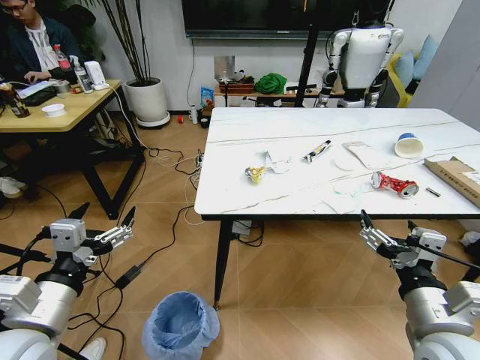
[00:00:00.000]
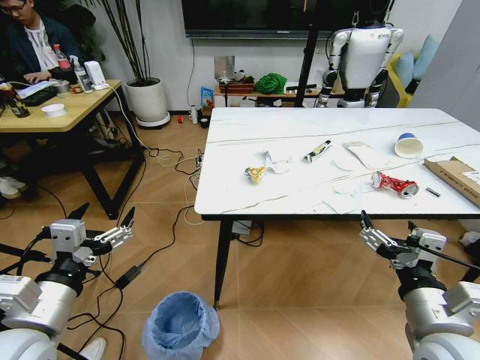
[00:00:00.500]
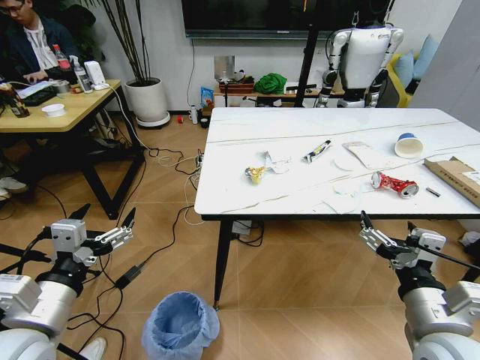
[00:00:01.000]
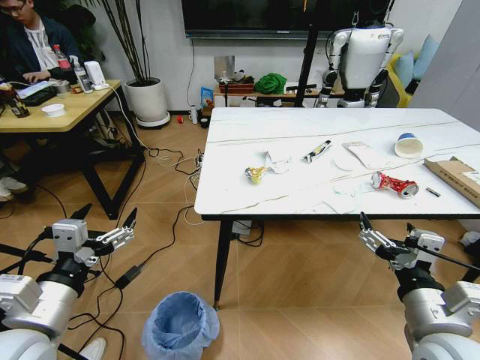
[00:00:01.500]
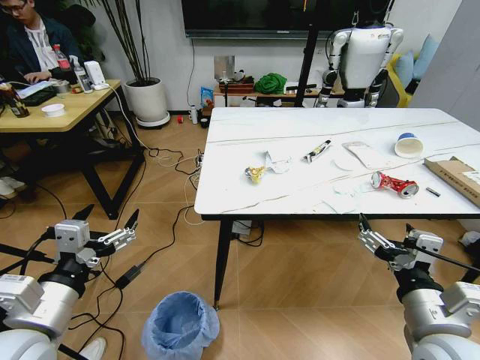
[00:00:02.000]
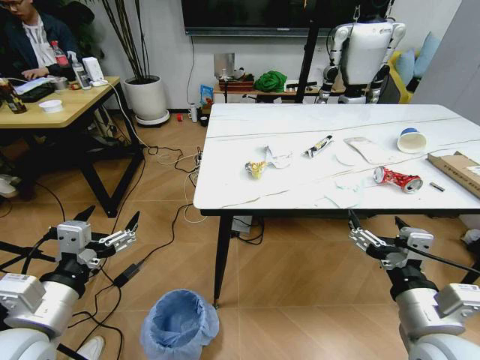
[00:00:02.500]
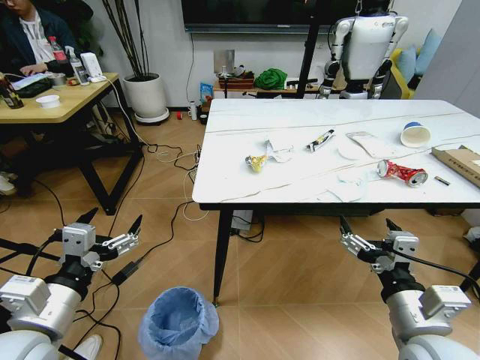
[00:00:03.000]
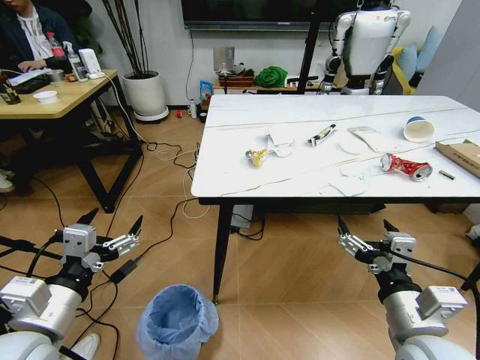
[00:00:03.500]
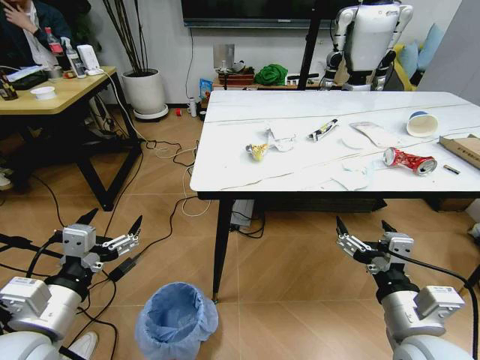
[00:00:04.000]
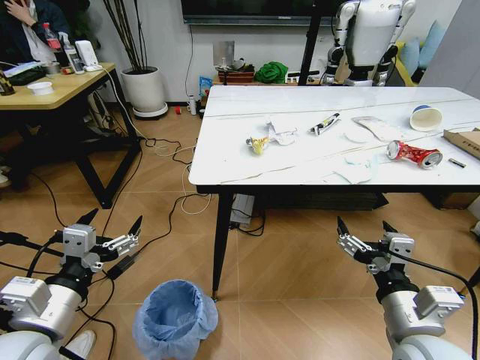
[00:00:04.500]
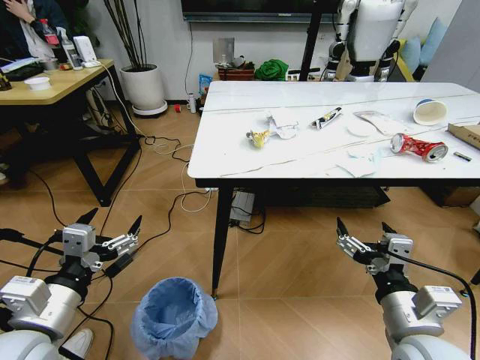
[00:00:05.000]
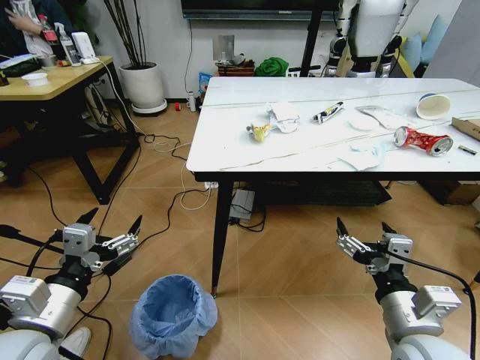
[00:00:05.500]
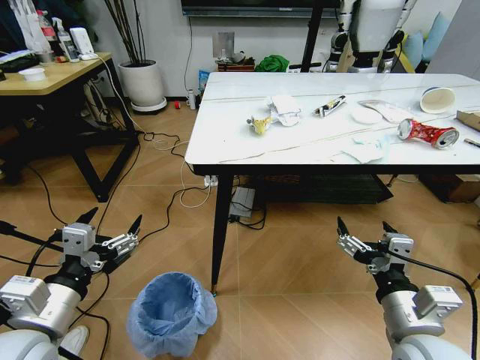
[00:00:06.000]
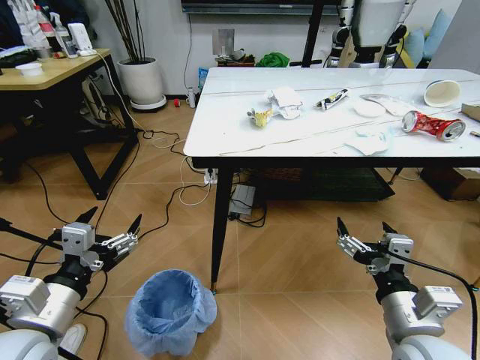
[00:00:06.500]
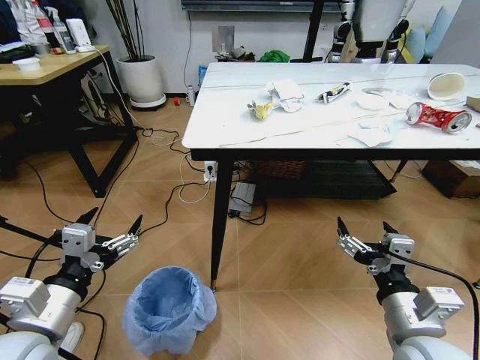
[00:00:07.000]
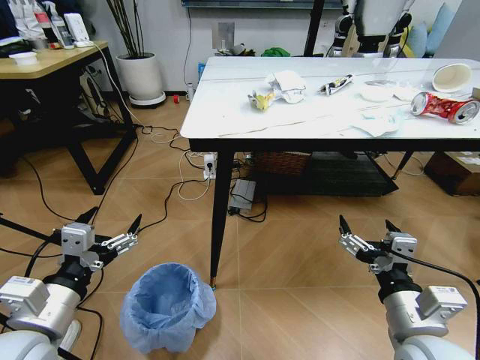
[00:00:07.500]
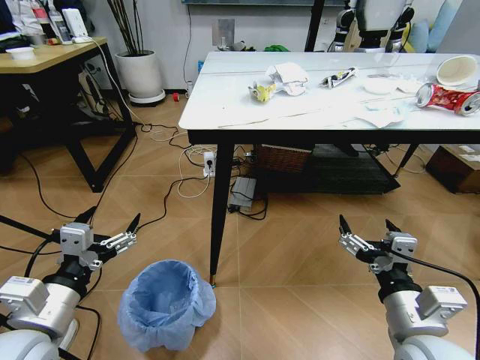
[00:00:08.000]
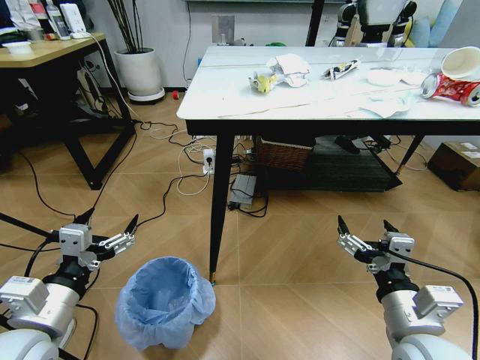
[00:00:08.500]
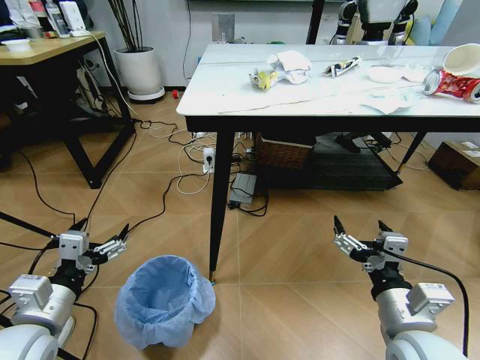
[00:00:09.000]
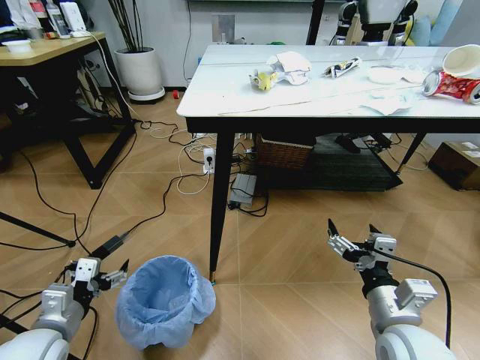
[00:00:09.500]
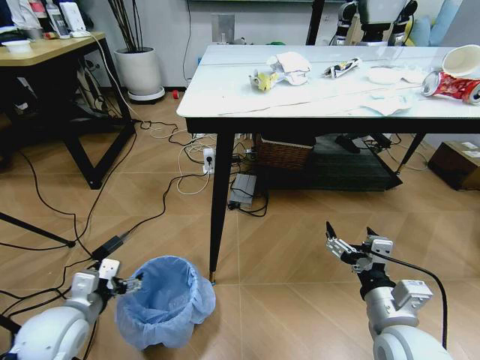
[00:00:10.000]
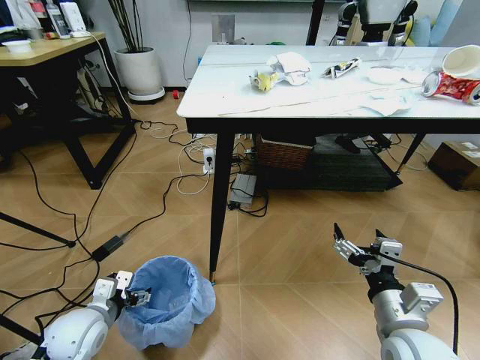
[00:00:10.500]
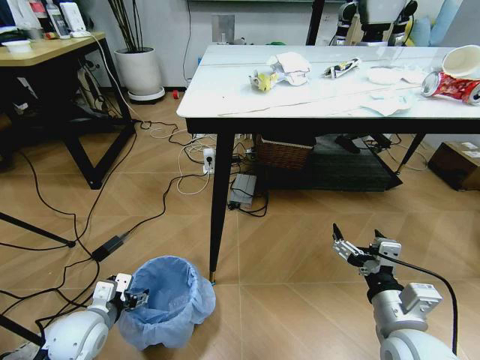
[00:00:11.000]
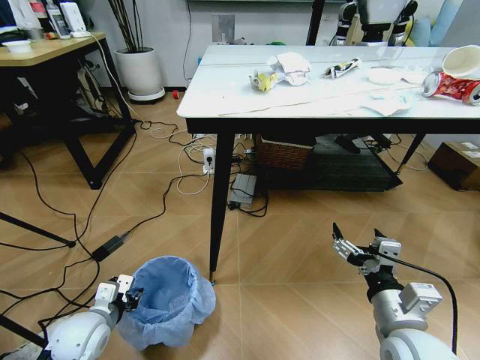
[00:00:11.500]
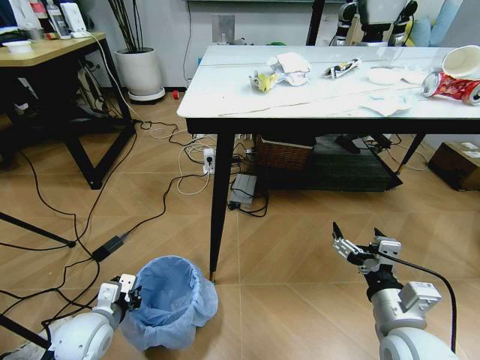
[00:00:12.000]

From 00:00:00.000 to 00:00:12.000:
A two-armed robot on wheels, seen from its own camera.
Task of the whole recording: Pick up the trash bin and place the trash from the table into it.
From 00:00:08.000 to 00:00:10.000: The left gripper moves downward and forward, about 15 cm.
From 00:00:10.000 to 00:00:12.000: The left gripper shifts about 5 cm downward, and closes its fingers.

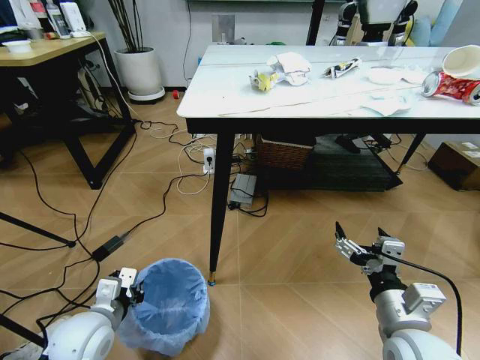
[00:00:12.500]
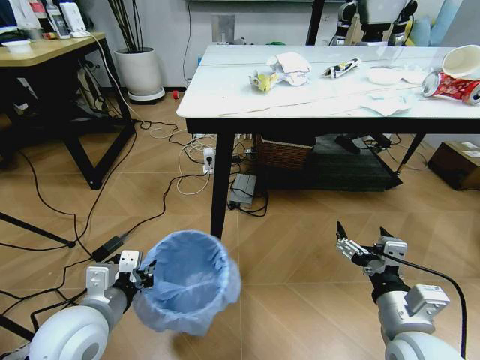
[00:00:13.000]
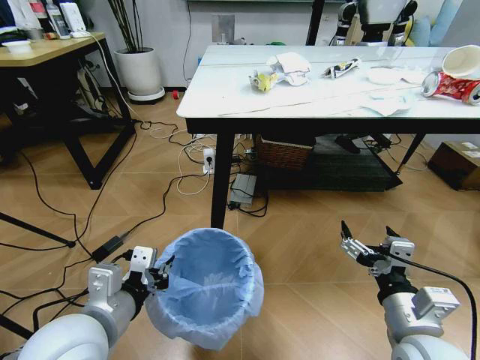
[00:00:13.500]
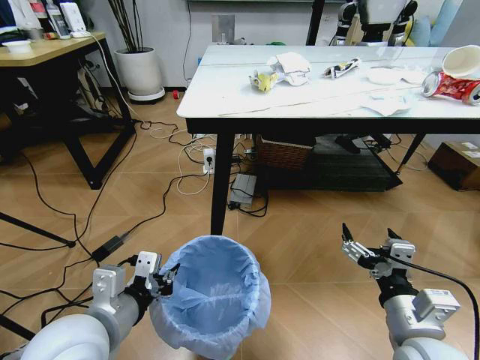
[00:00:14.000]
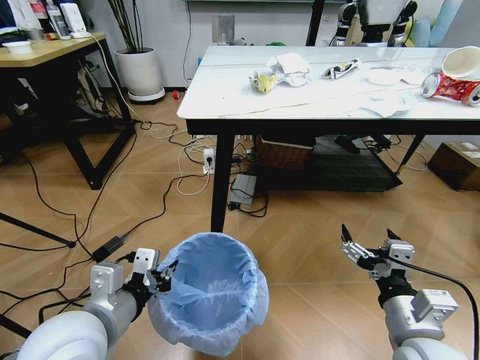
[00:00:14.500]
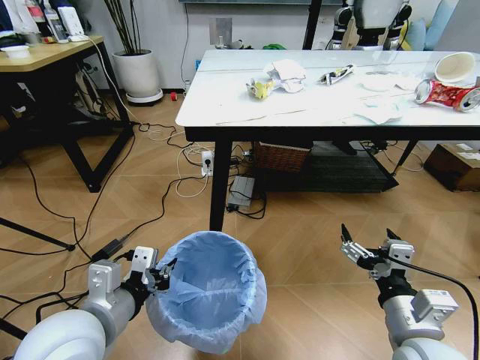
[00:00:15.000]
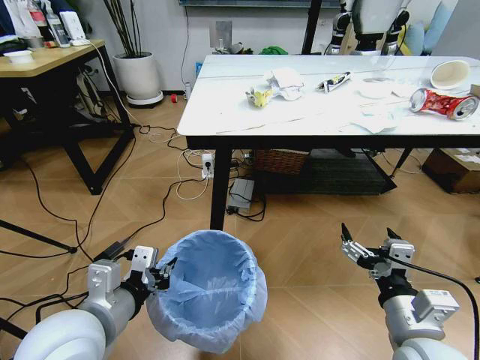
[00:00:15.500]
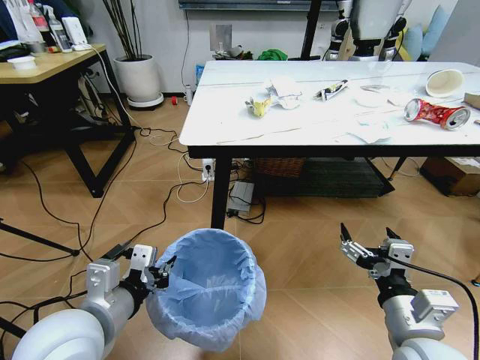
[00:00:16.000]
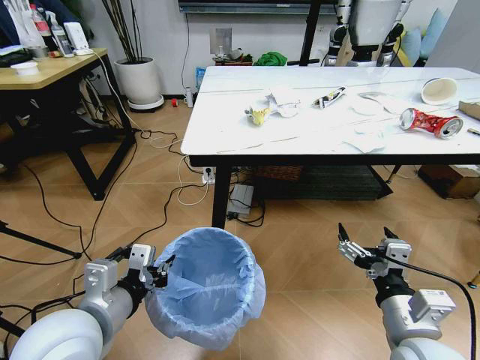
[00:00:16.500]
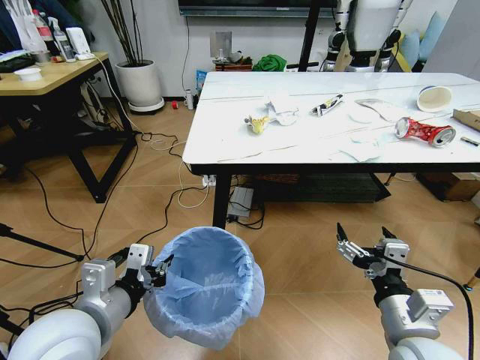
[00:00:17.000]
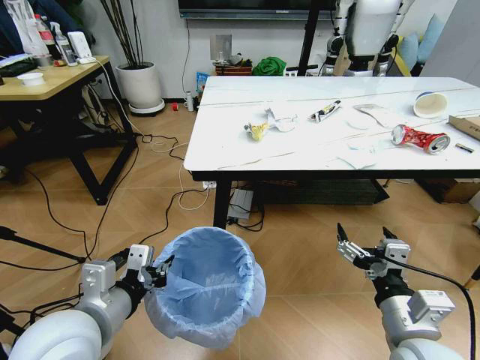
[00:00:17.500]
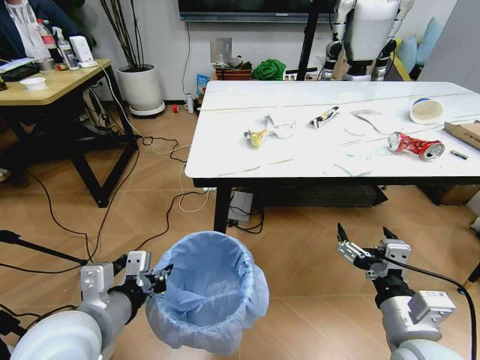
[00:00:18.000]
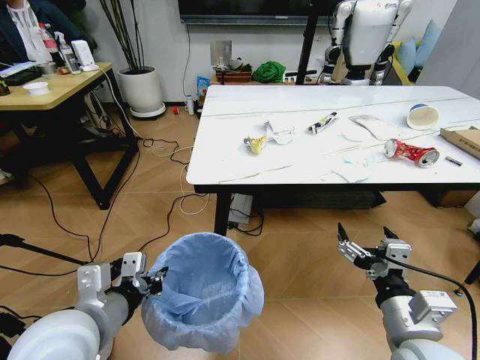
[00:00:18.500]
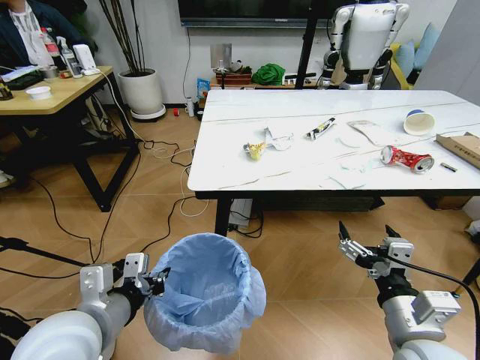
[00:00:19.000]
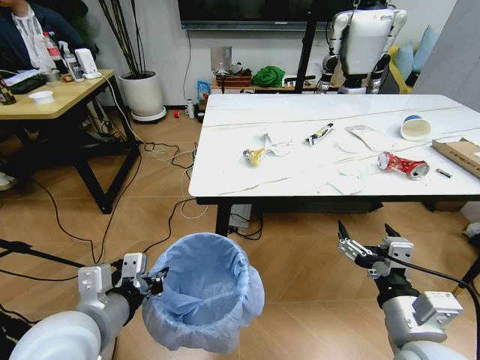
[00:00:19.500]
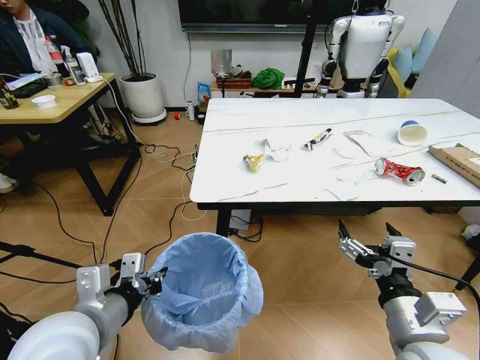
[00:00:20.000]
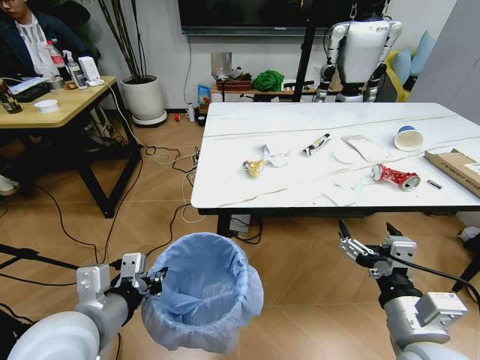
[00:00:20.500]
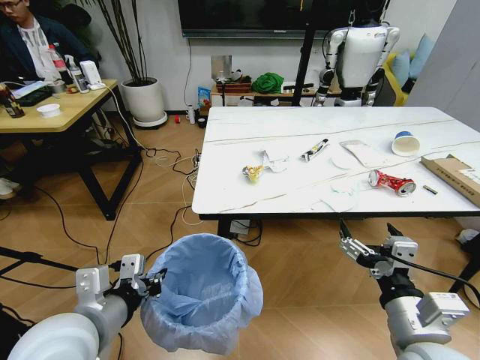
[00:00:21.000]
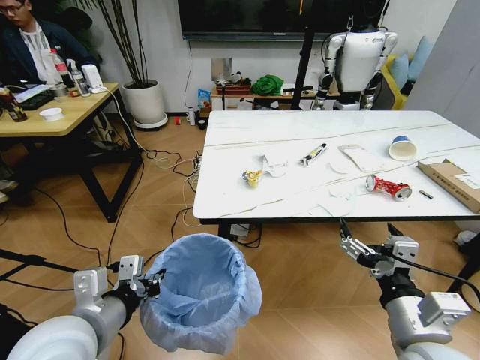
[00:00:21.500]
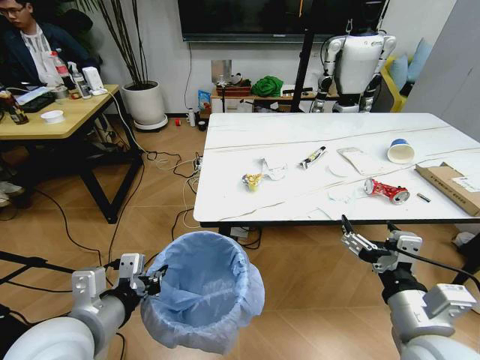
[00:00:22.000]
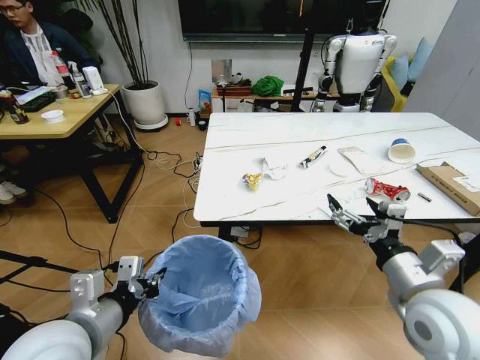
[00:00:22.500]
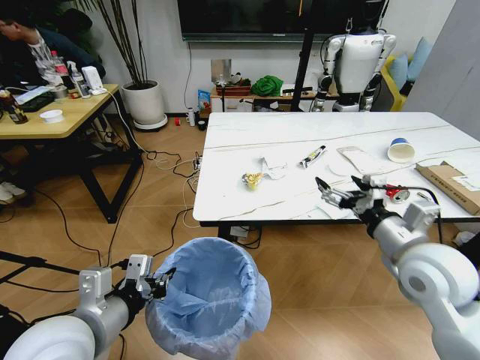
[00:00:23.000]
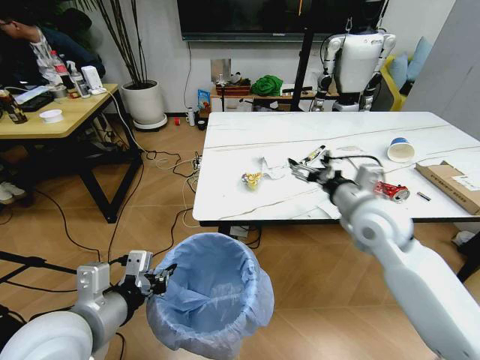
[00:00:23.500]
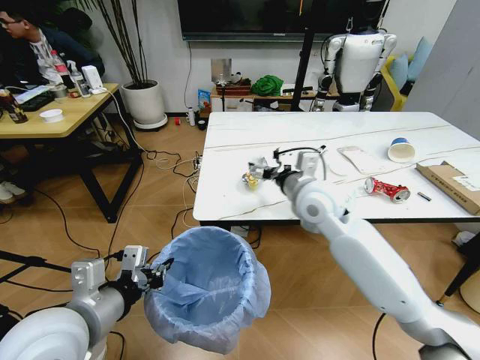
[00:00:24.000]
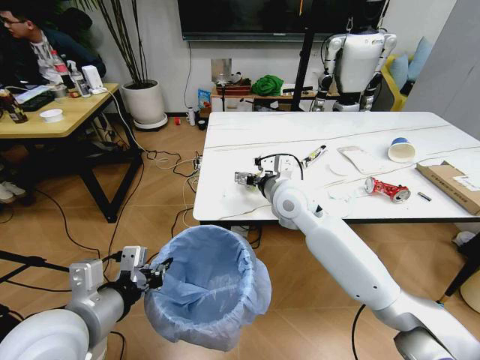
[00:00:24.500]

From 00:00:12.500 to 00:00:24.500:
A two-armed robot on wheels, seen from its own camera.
Task of the whole recording: Pick up the trash bin and place the trash from the table into it.
From 00:00:12.500 to 00:00:14.500: The left gripper moves upward and to the right, about 15 cm.
From 00:00:20.500 to 00:00:22.500: The right gripper shifts approximately 5 cm forward.
From 00:00:22.500 to 00:00:24.500: The right gripper travels forward and to the left by some 30 cm.

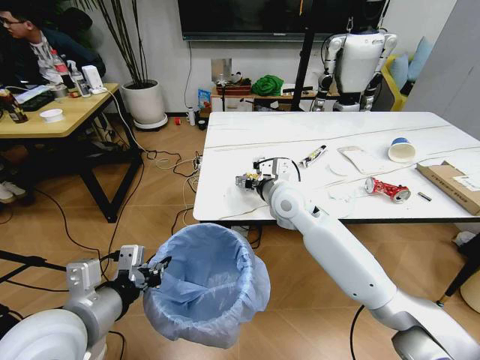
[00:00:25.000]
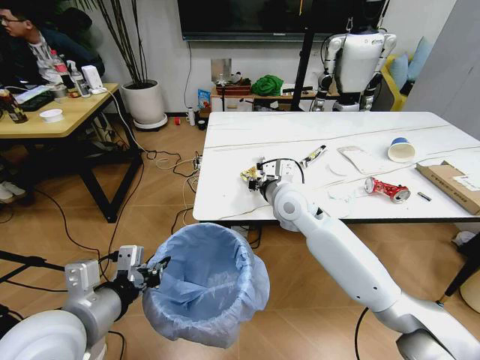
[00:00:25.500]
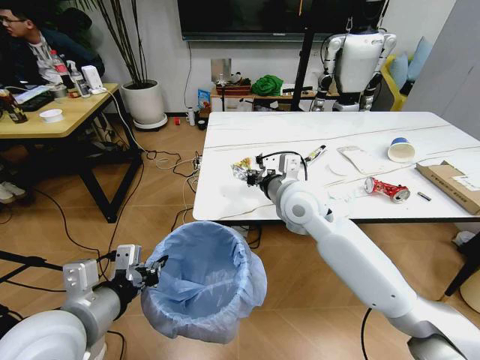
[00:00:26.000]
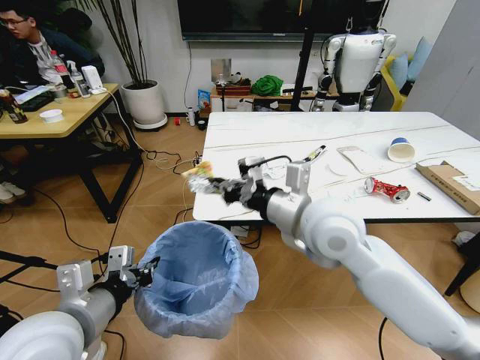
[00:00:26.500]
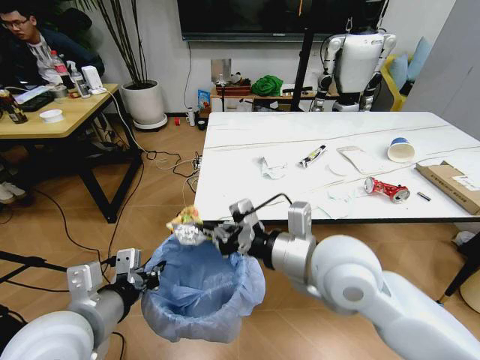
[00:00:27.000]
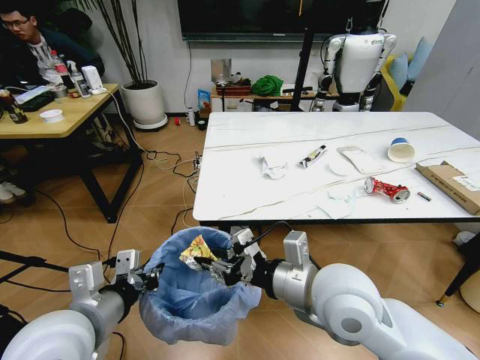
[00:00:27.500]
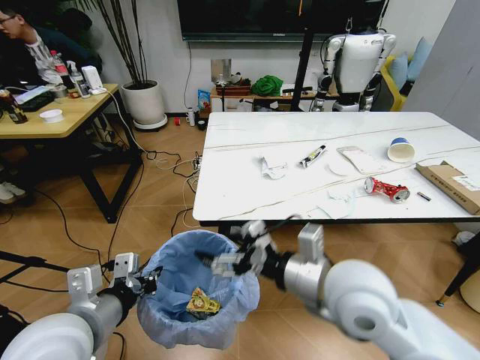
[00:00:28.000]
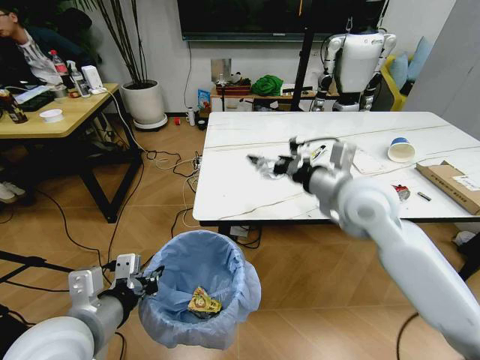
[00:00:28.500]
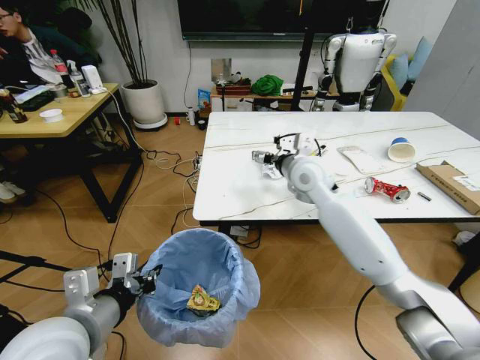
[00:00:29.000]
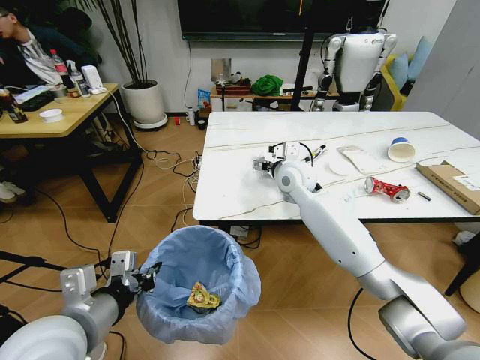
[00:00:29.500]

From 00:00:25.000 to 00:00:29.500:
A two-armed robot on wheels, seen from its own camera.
Task of the whole recording: Pick up the trash bin and place the trash from the table into it.
From 00:00:25.000 to 00:00:27.000: The right gripper shifts some 20 cm backward, and closes its fingers.
From 00:00:27.000 to 00:00:29.500: The right gripper heads forward, covering roughly 25 cm, and opens its fingers.
